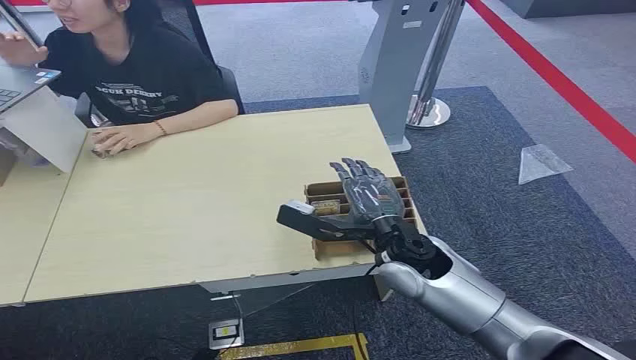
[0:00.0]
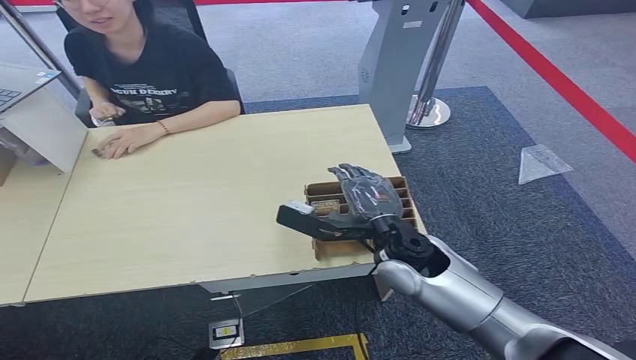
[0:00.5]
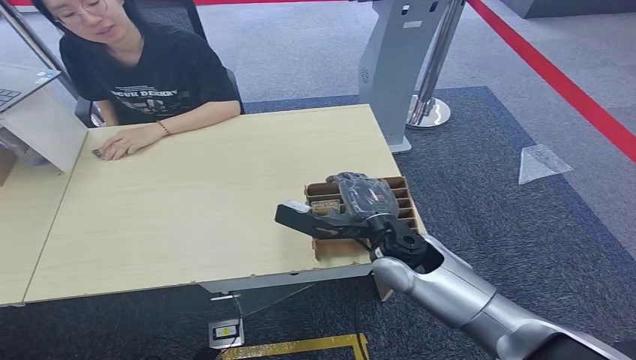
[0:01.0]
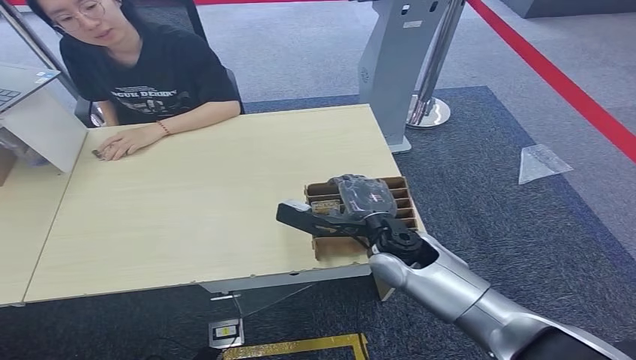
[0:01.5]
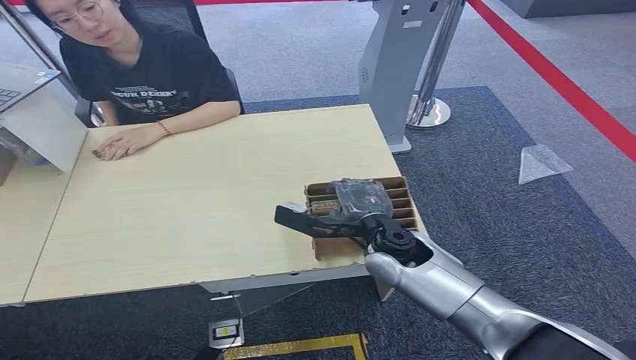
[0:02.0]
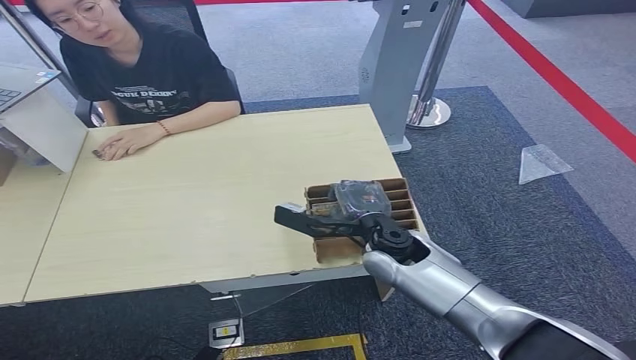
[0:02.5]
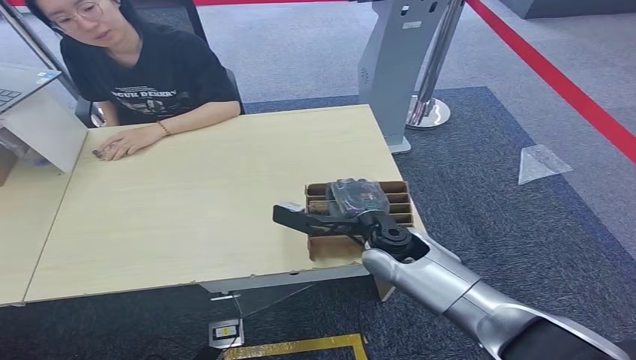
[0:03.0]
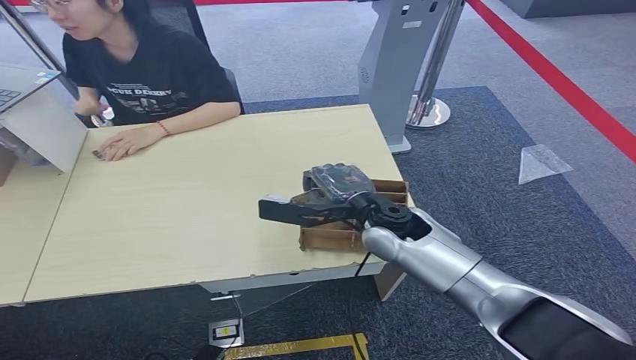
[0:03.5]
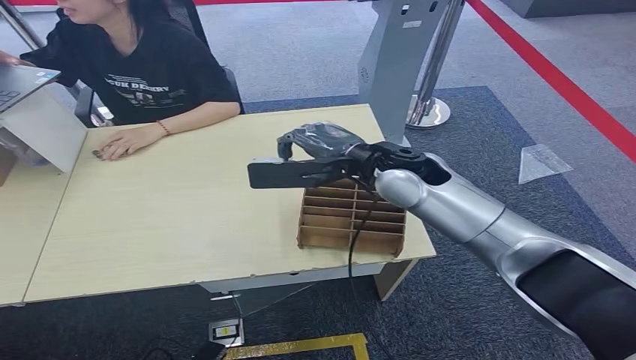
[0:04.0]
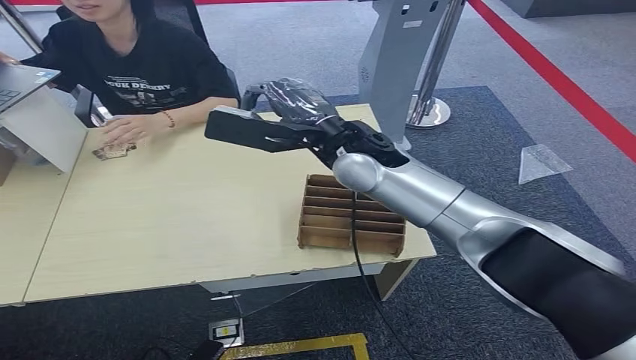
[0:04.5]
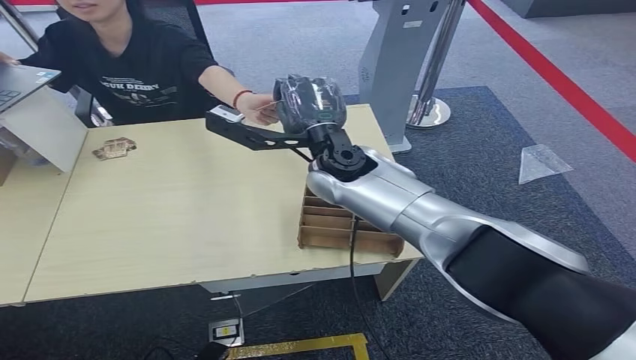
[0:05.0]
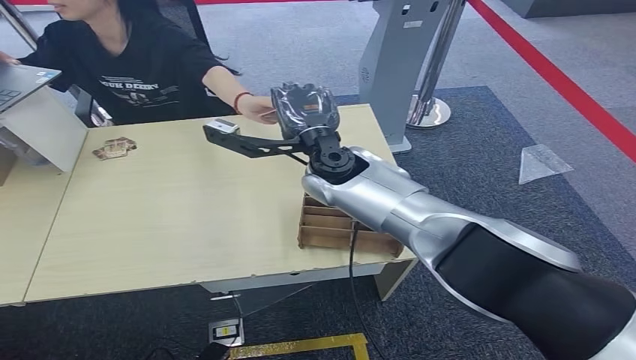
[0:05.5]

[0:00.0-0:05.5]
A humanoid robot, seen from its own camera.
Step, 0:00.0 to 0:04.0: Pick up the key card from the card box.
Step, 0:05.0 to 0:05.5: Hand the key card to the target.
0:02.0 to 0:03.5: The hands stay close to where they were, moving slightly.

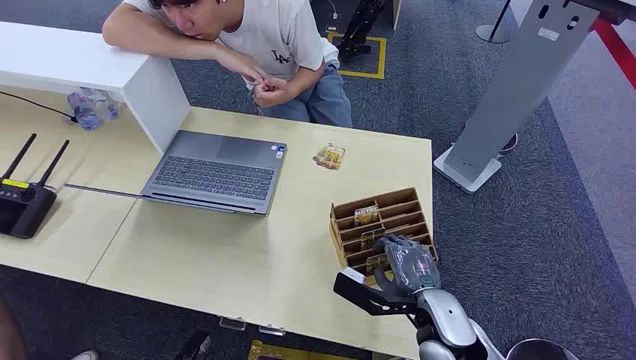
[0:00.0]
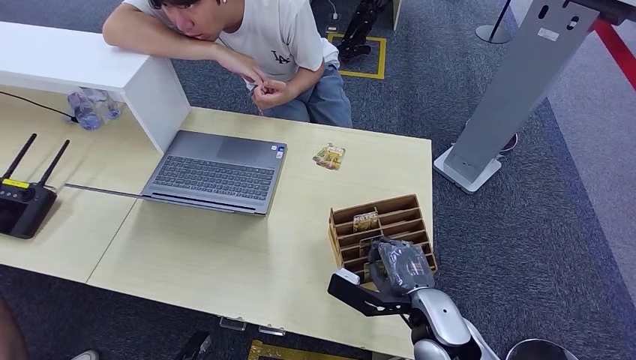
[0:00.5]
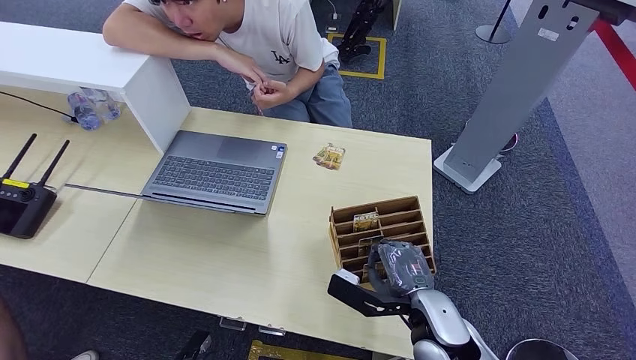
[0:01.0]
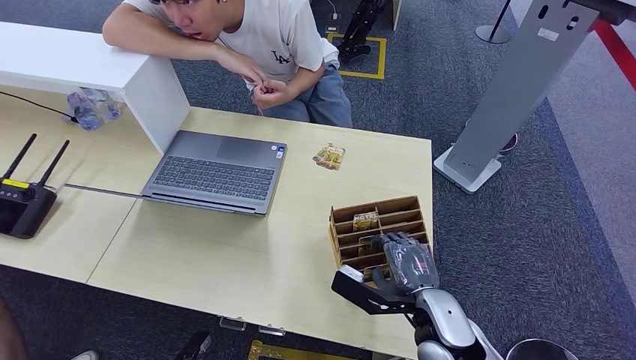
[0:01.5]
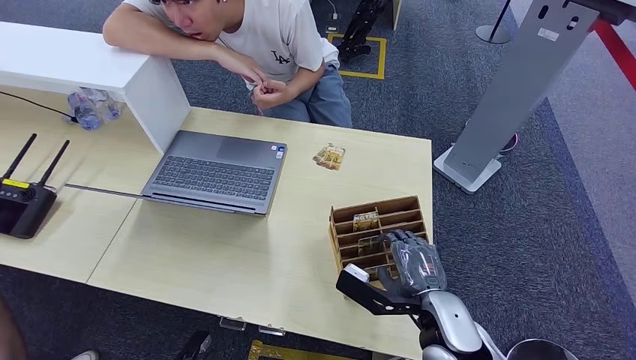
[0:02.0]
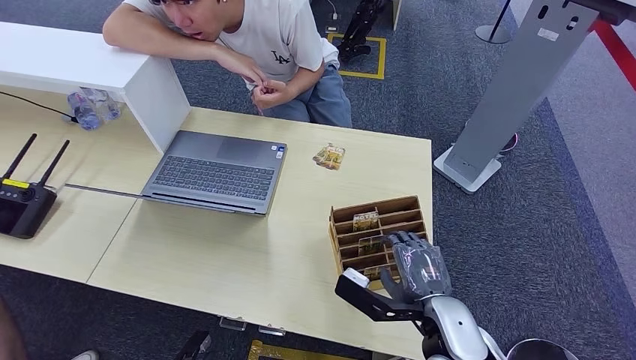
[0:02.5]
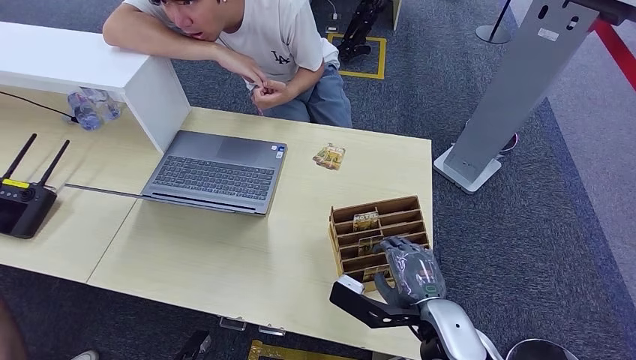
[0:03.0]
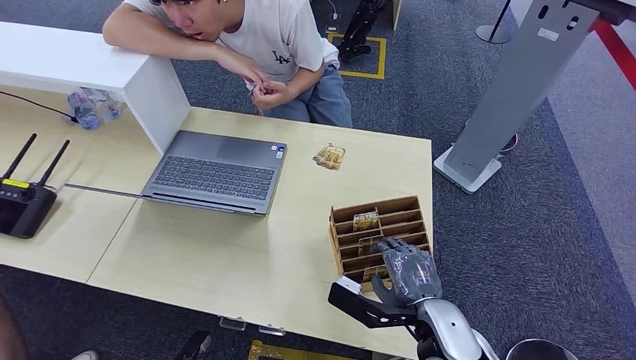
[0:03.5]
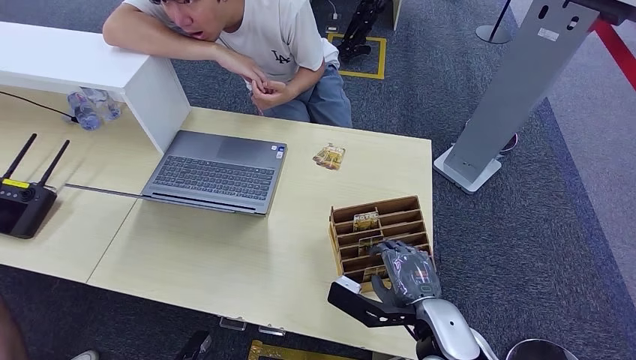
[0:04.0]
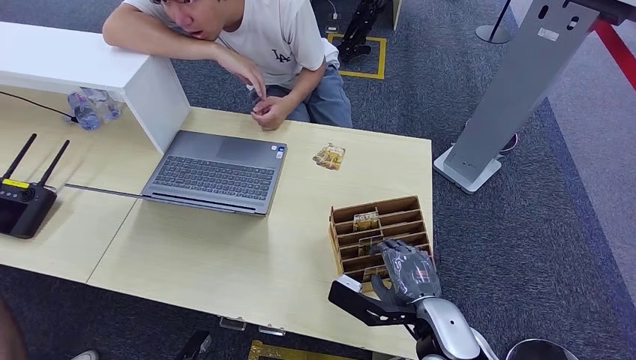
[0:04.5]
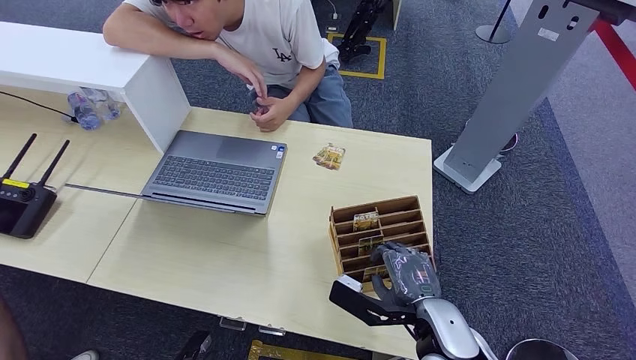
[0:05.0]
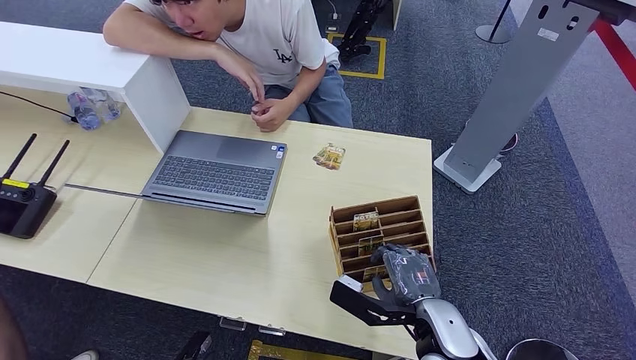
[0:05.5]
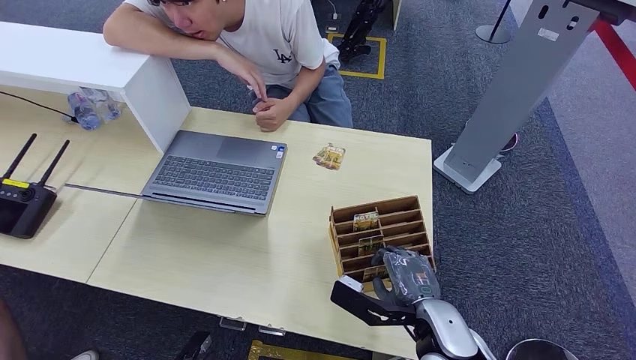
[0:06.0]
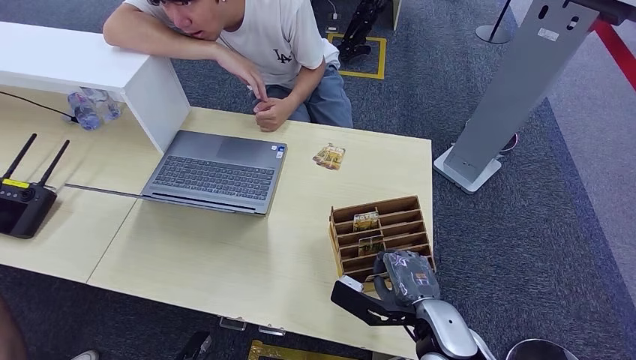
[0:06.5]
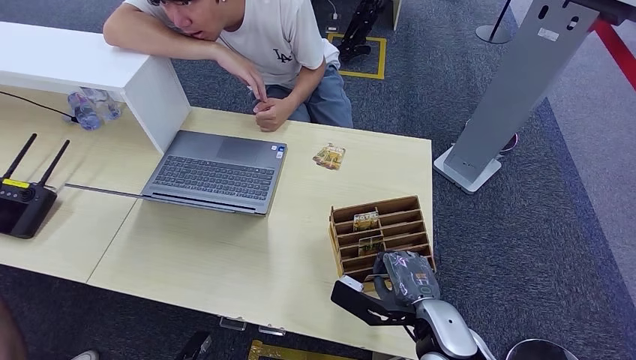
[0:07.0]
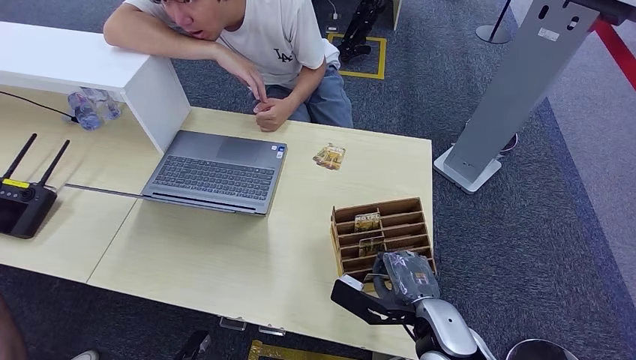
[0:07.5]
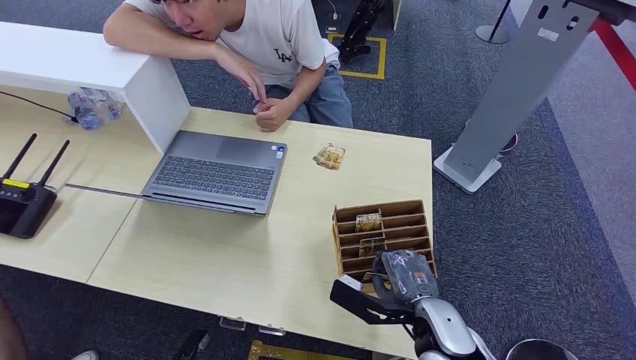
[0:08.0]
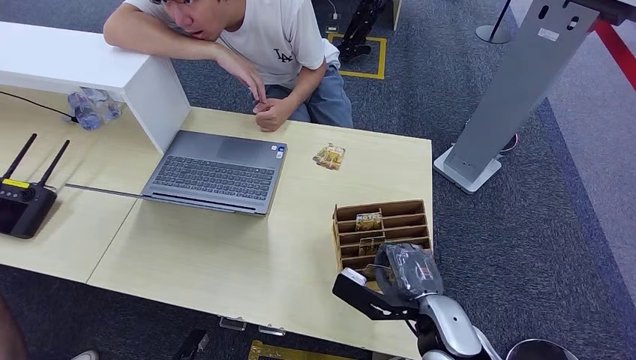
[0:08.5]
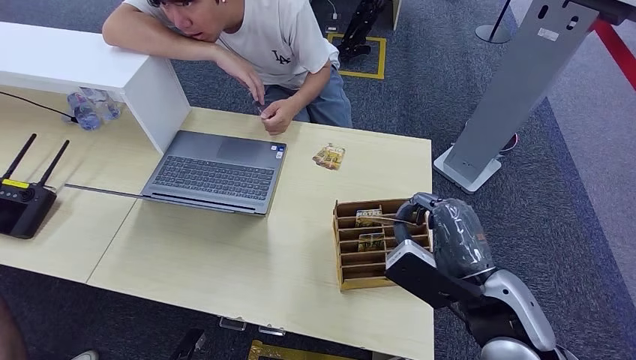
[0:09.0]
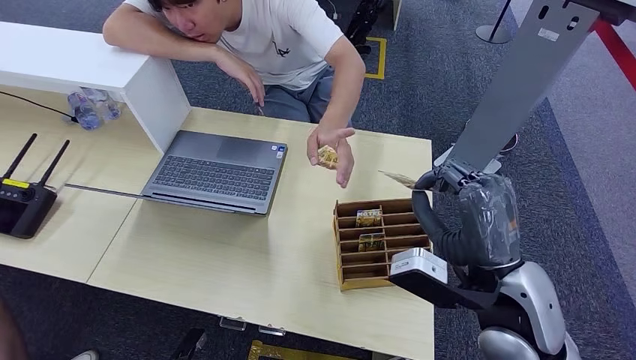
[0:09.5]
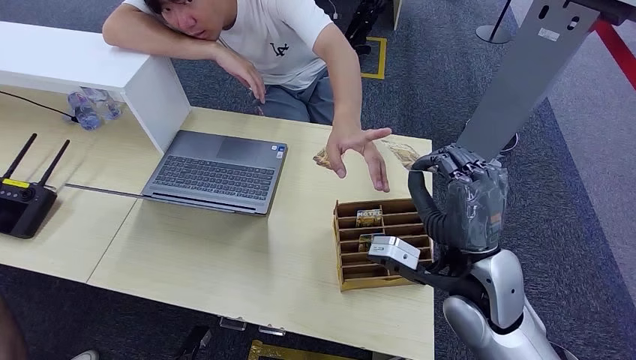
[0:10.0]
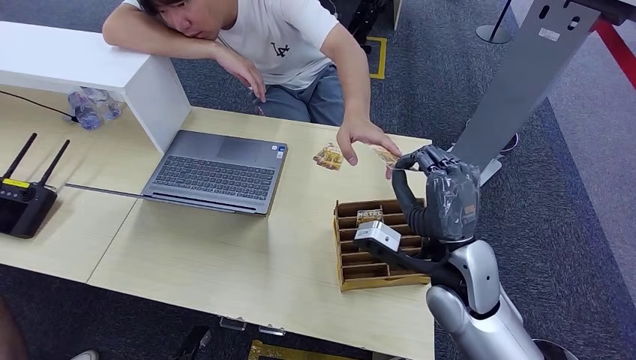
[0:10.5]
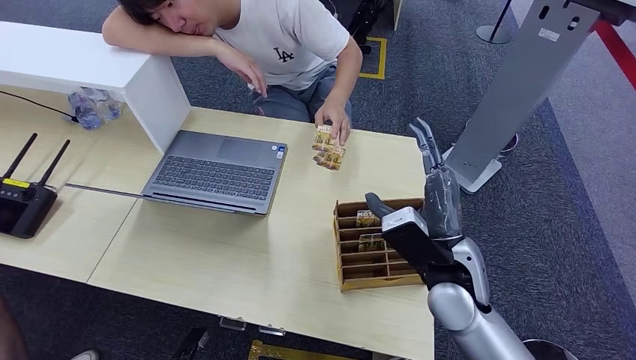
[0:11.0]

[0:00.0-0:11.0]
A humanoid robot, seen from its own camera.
Step, 0:00.0 to 0:08.0: Pick up the key card from the card box.
Step, 0:08.5 to 0:11.0: Hand the key card to the target.
0:02.0 to 0:03.5: The hands stay close to where they were, moving slightly.
0:03.5 to 0:05.5: Neither hand changes place.
0:05.5 to 0:07.5: Both hands stay put.
0:07.5 to 0:09.0: The right hand is displaced upward by about 10 cm.
0:09.0 to 0:11.0: The right hand is displaced forward by some 5 cm.
